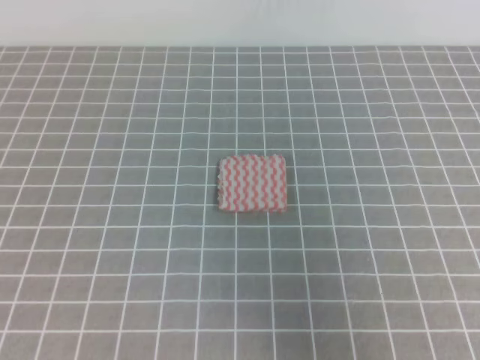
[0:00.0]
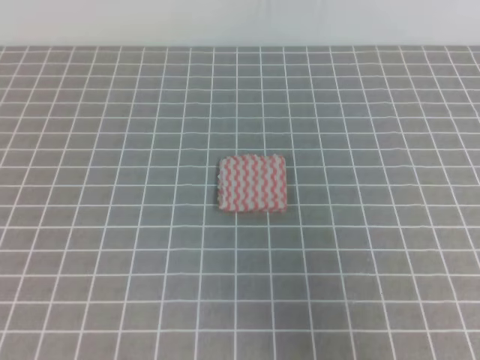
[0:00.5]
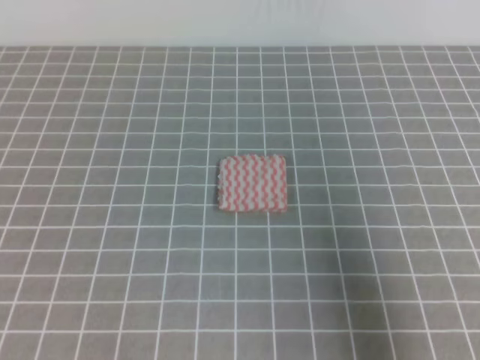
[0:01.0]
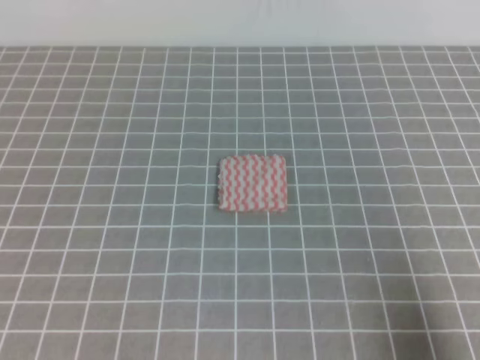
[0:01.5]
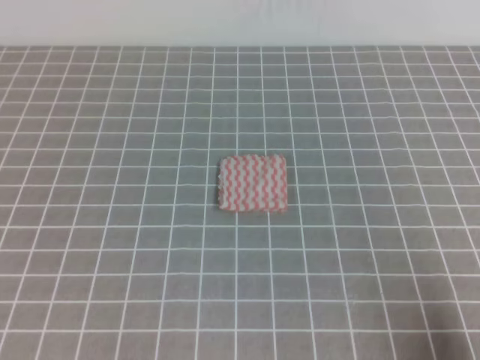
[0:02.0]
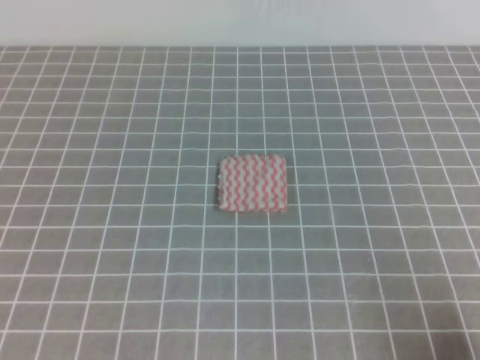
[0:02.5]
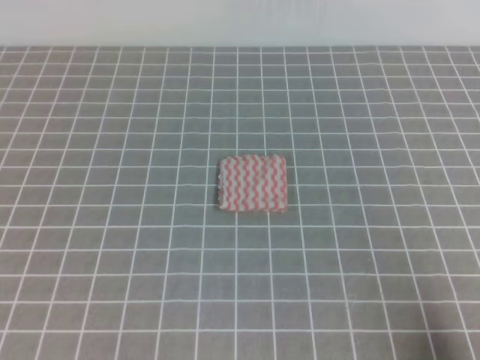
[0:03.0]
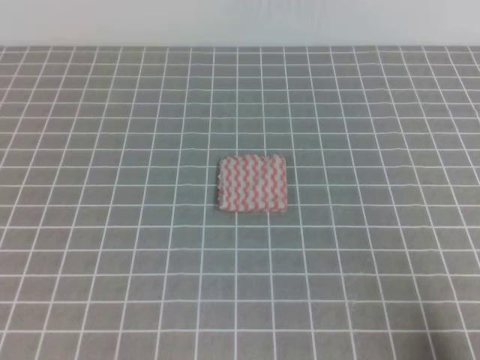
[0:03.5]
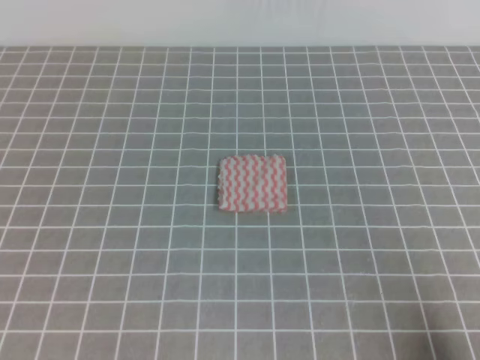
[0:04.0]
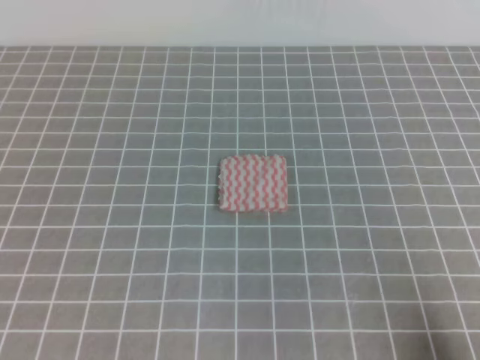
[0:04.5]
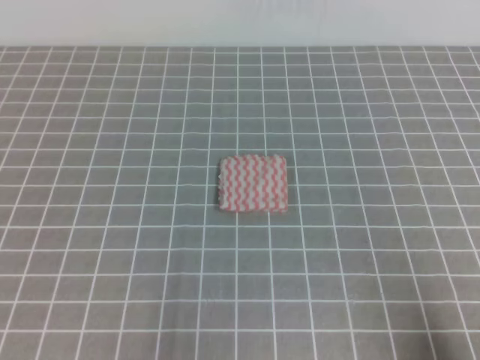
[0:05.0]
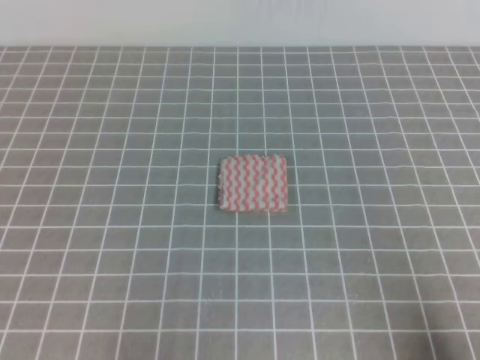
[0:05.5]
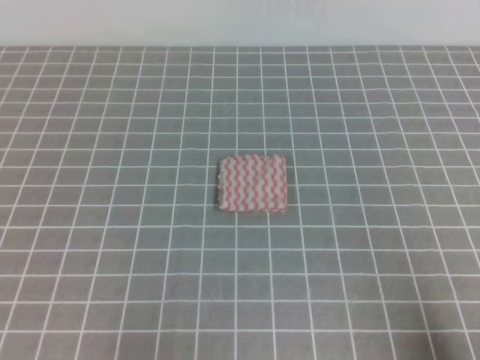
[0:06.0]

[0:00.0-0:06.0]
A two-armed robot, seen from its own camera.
Step, 0:00.0 to 0:06.0: Fold the towel.
0:00.0 to 0:02.0: The right gripper moves downward, roughly 15 cm.

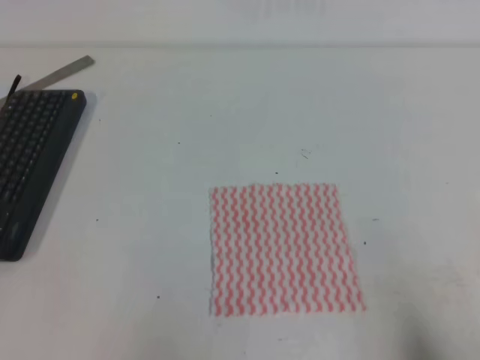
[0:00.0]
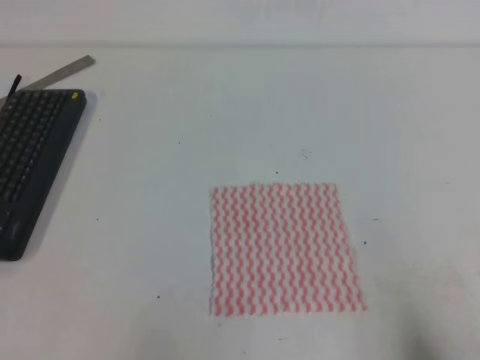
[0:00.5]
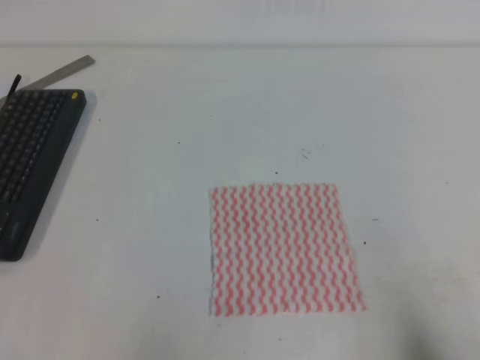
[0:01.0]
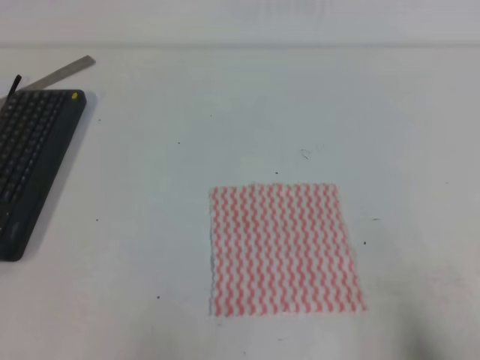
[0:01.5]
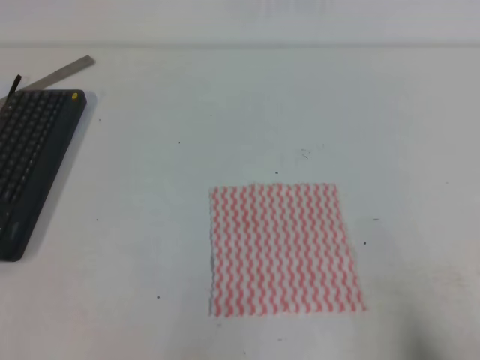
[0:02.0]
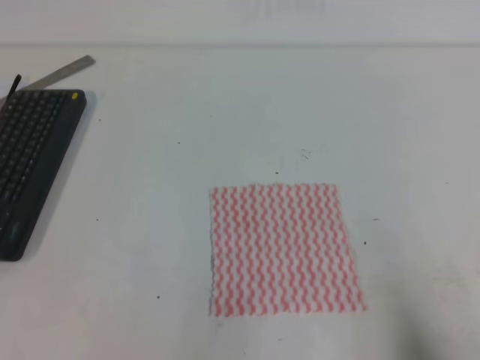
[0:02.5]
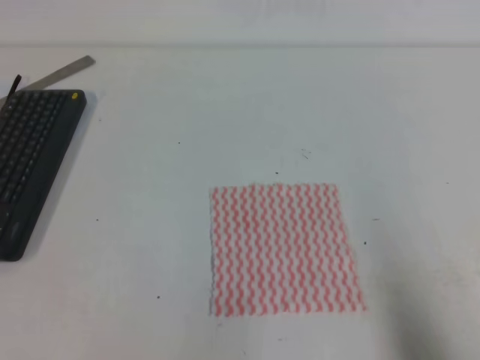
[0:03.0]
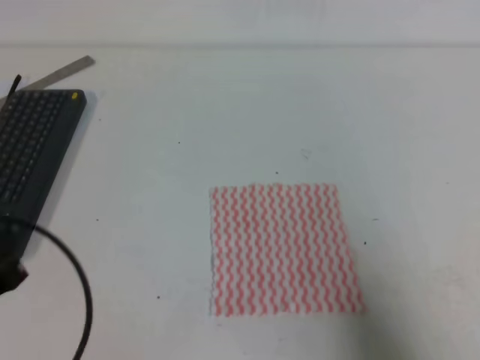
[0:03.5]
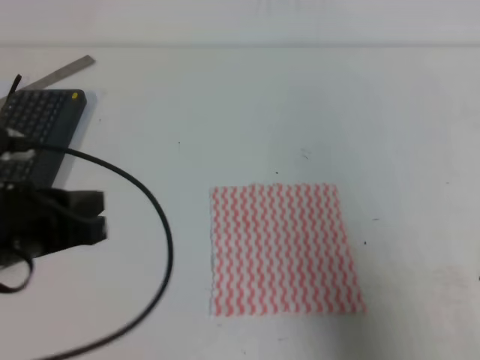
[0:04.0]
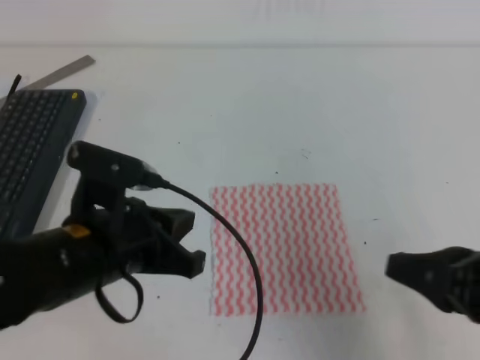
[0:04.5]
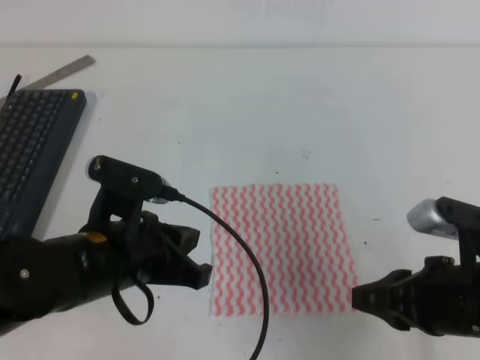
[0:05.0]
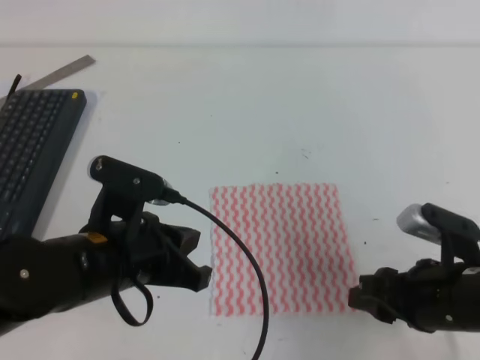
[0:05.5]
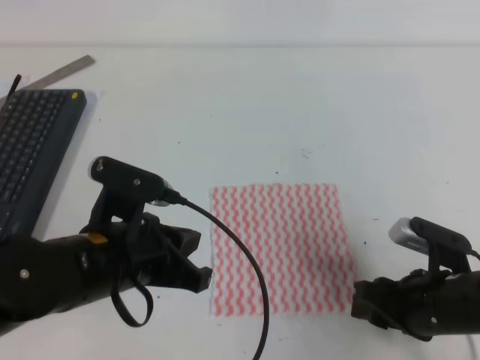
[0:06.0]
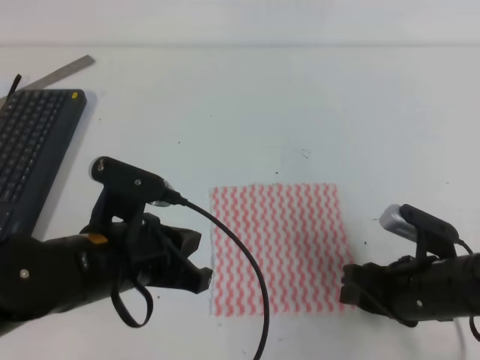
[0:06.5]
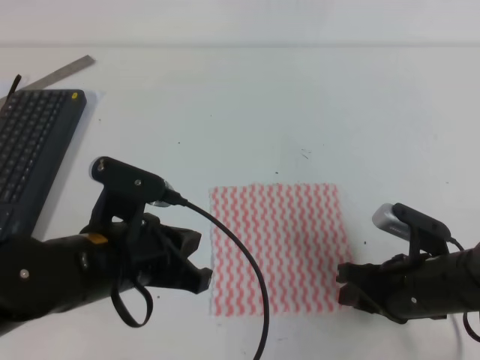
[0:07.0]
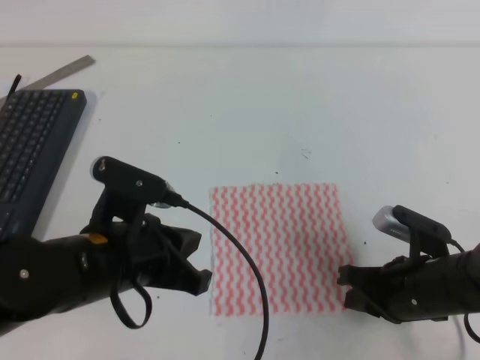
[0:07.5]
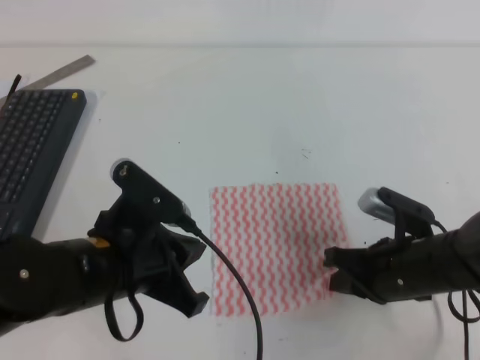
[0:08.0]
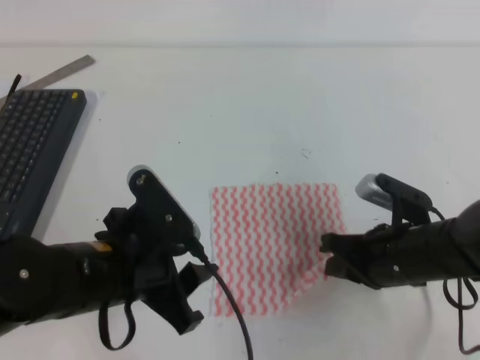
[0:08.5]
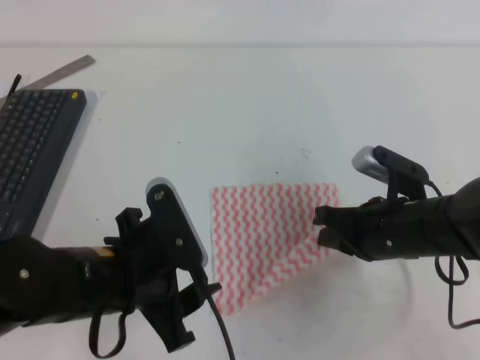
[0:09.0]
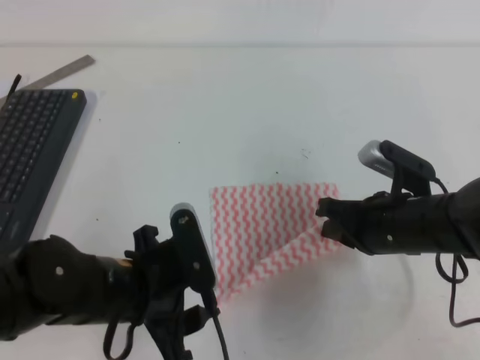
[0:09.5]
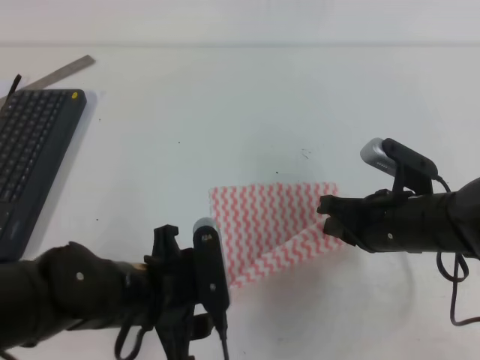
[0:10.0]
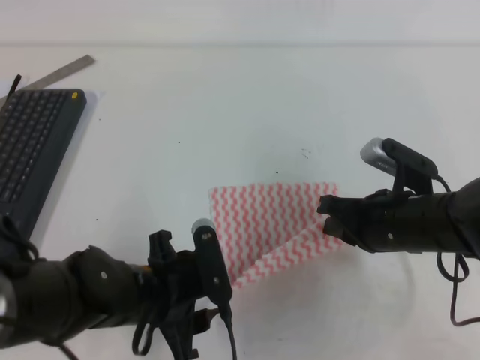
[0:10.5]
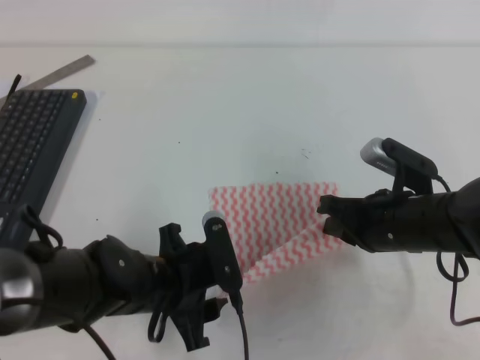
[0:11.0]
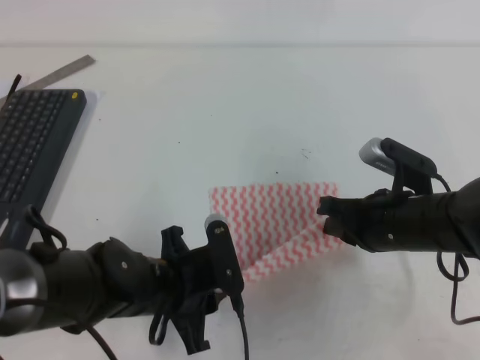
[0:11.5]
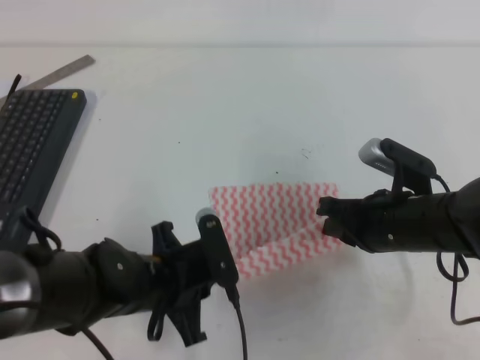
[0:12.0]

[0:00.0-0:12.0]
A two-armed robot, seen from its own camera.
0:02.0 to 0:04.0: The left gripper goes approximately 15 cm forward, upward and to the right, while the right gripper goes about 10 cm upward and forward.
0:04.0 to 0:06.0: The right gripper heads downward, forward and to the left, covering about 15 cm, and opens up, while the left gripper moves to the right, roughly 10 cm.
0:06.0 to 0:08.0: The right gripper closes.
0:08.0 to 0:10.0: The left gripper ends up roughly 5 cm from where it was, and opens up. Meanwhile the right gripper moves about 5 cm.
0:10.0 to 0:12.0: The left gripper closes.

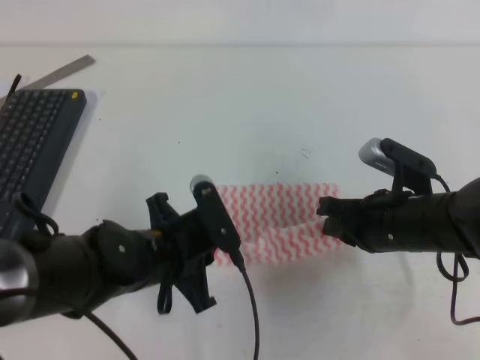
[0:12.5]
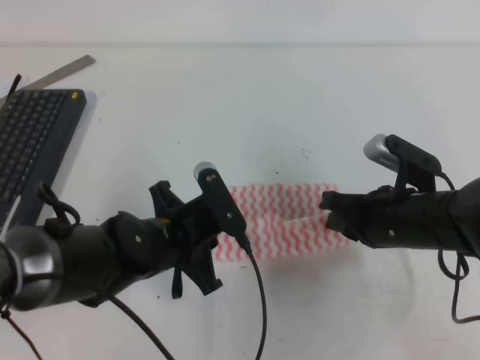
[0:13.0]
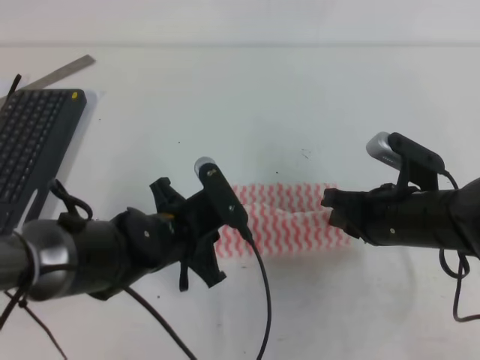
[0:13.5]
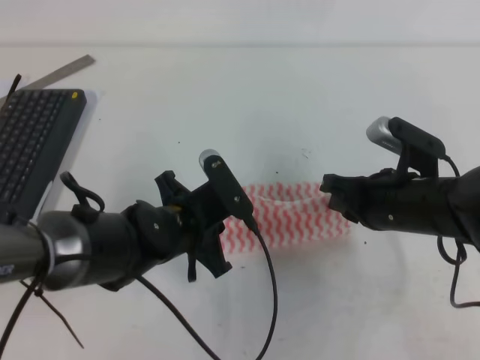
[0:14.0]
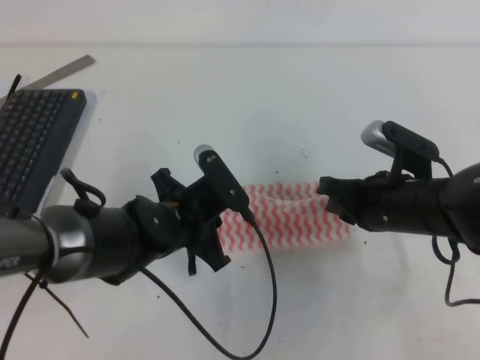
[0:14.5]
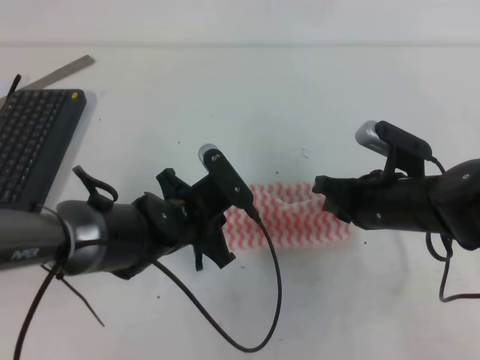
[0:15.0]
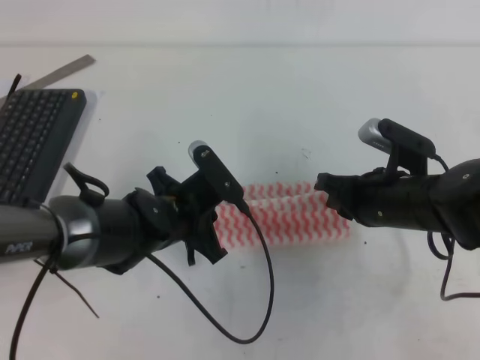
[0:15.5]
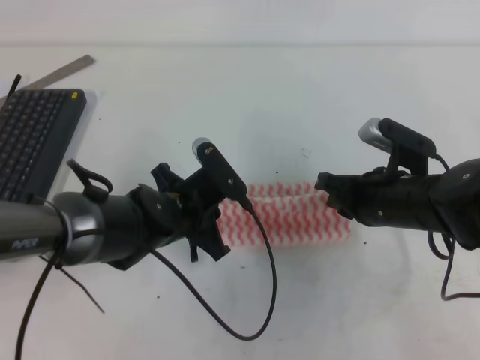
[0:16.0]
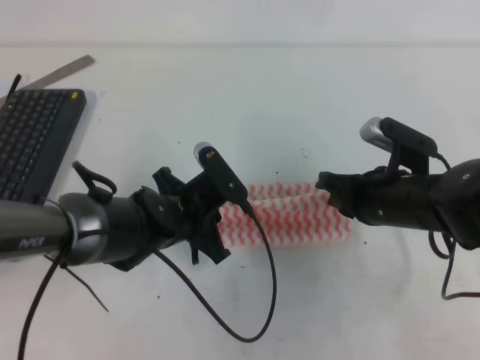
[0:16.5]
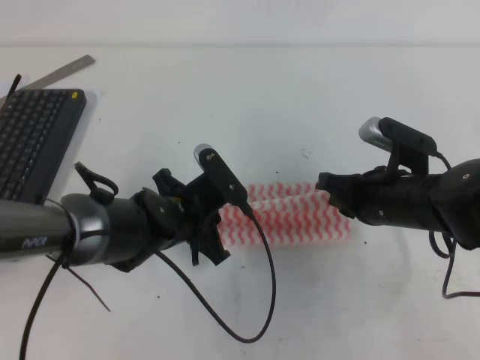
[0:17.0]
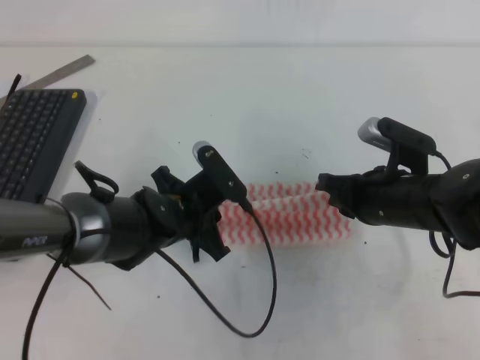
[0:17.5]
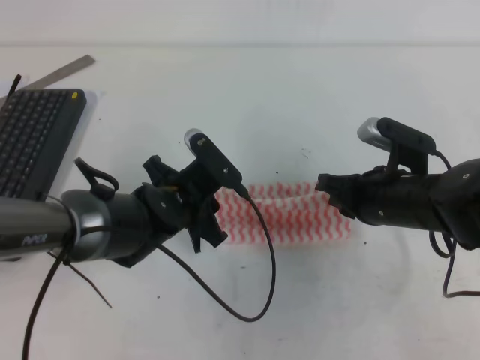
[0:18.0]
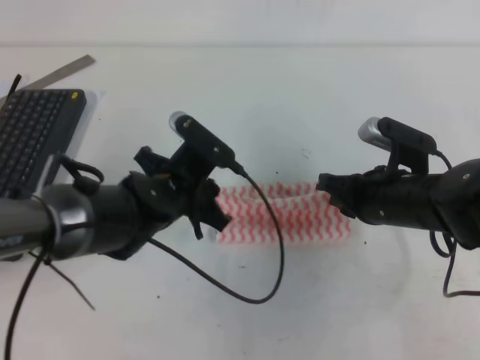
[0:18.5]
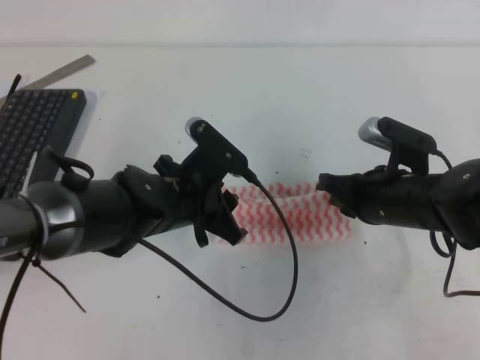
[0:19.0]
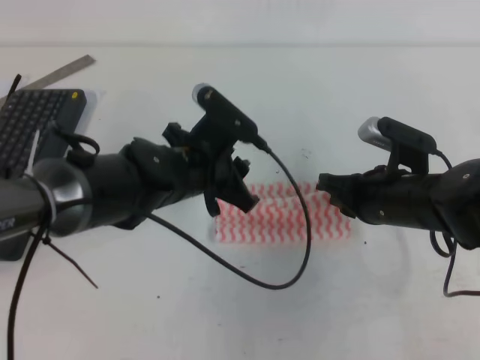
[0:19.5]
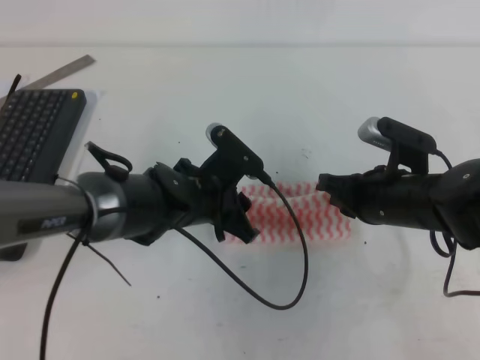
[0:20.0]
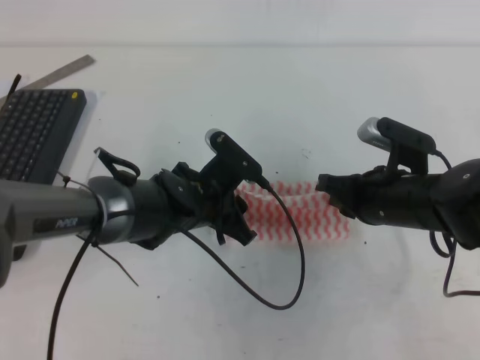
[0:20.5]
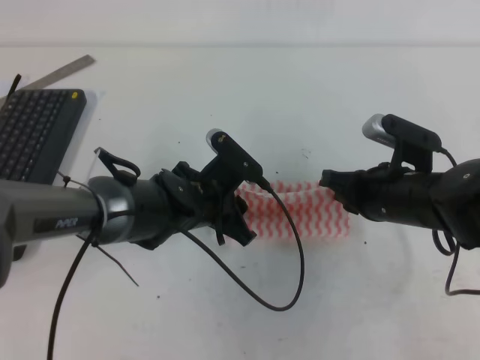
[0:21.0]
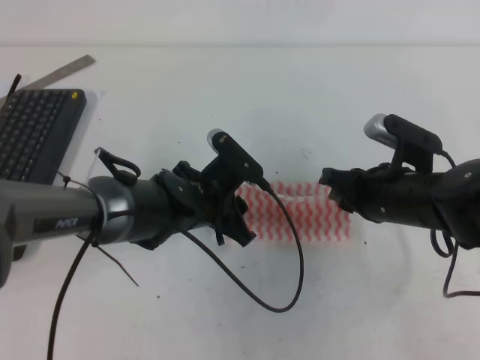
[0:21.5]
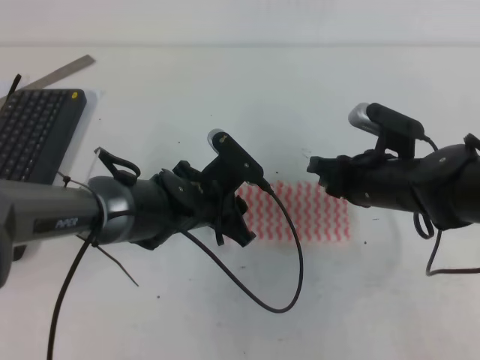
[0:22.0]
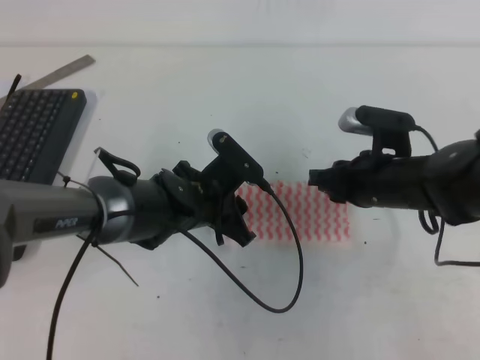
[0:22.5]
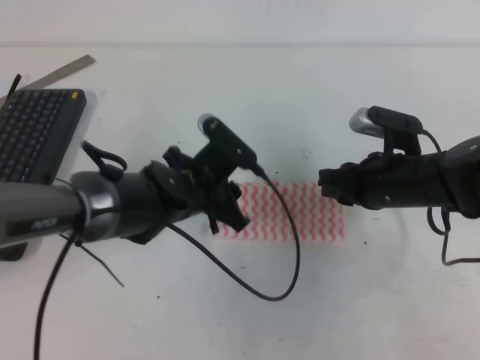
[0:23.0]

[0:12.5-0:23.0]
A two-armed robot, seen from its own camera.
0:12.5 to 0:14.5: The left gripper moves approximately 5 cm.
0:14.5 to 0:16.5: The grippers stay close to where they were, moving slightly.
0:16.5 to 0:19.0: The left gripper opens up.
0:19.0 to 0:21.0: The left gripper shifts by some 5 cm.
0:21.0 to 0:23.0: The right gripper opens.
